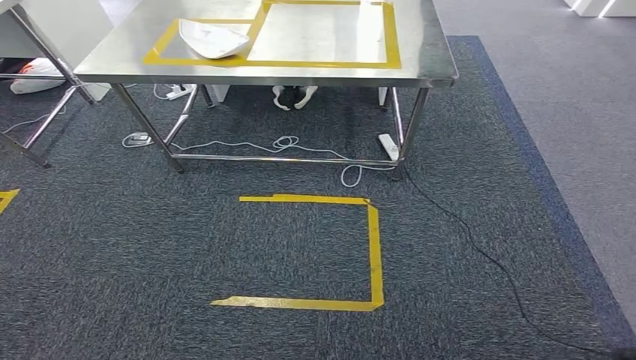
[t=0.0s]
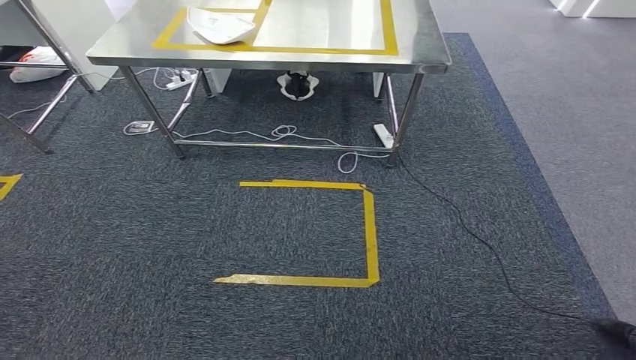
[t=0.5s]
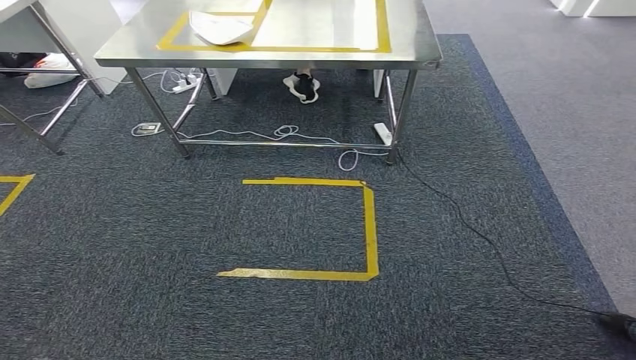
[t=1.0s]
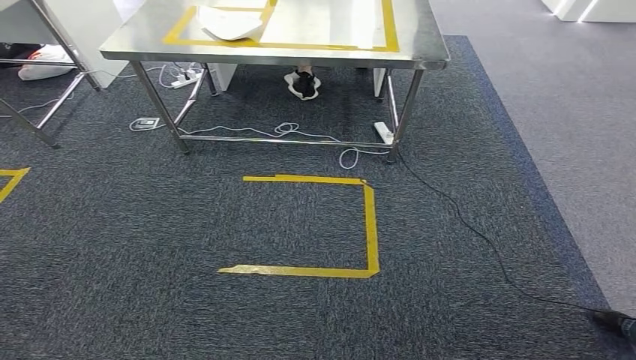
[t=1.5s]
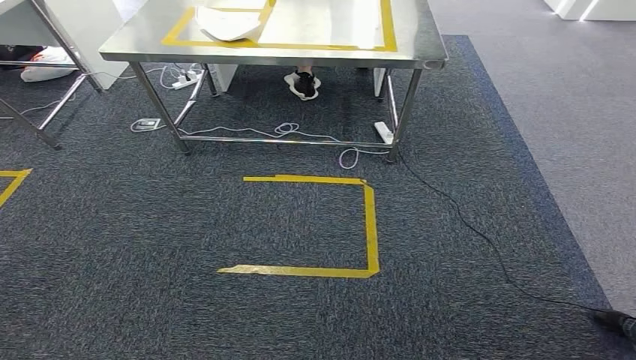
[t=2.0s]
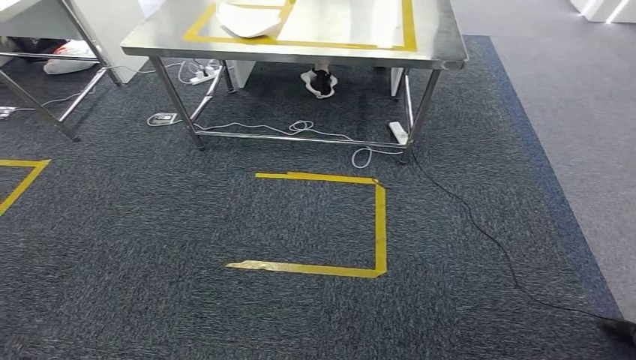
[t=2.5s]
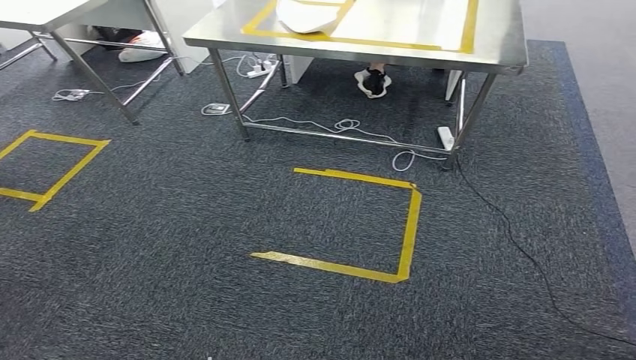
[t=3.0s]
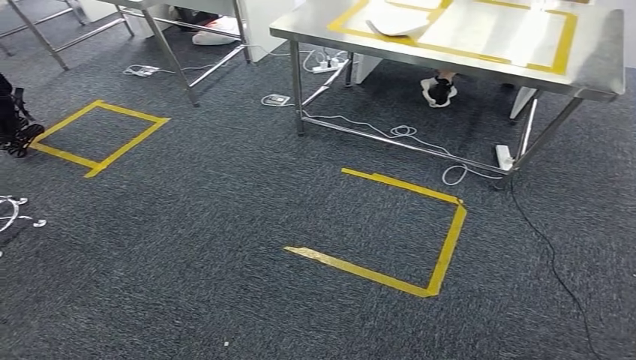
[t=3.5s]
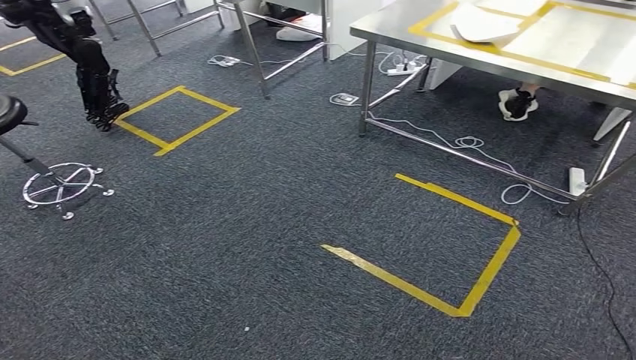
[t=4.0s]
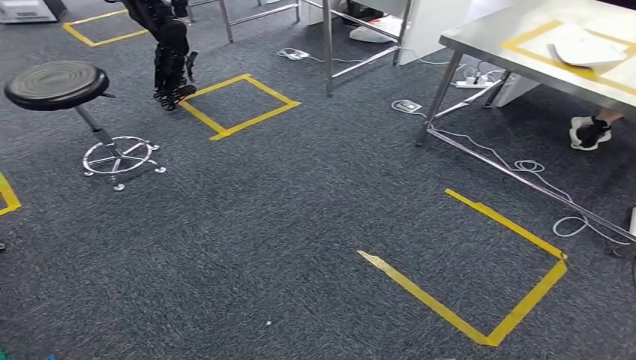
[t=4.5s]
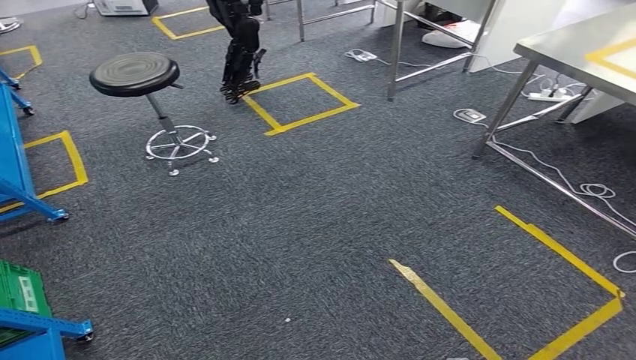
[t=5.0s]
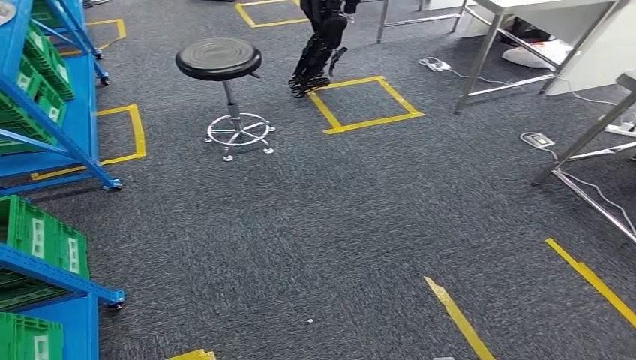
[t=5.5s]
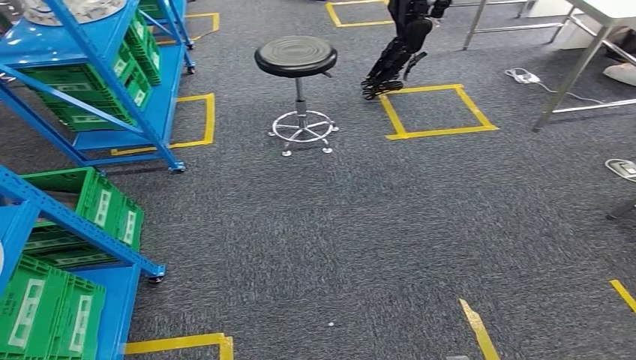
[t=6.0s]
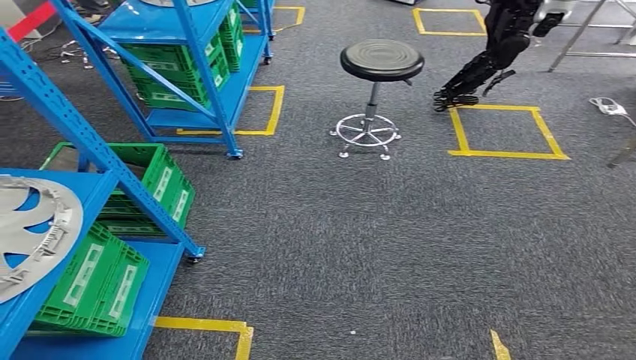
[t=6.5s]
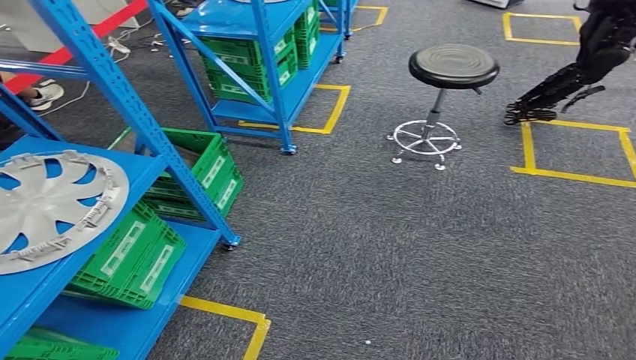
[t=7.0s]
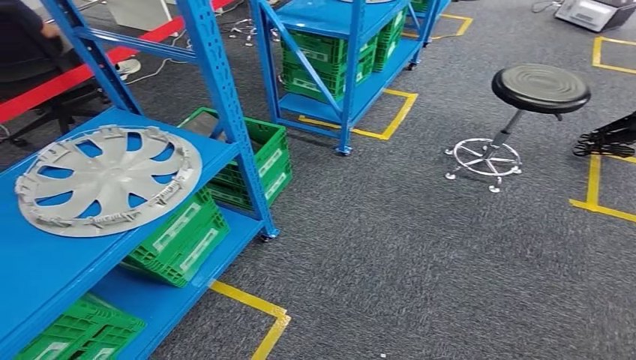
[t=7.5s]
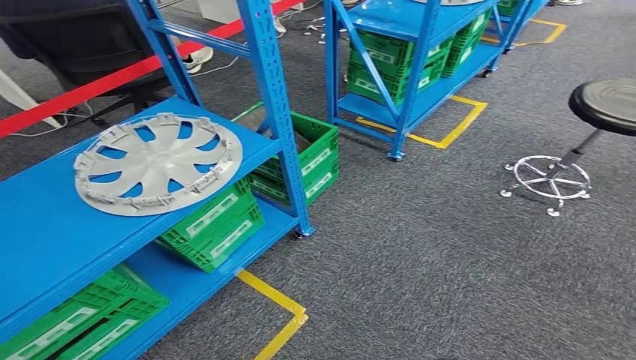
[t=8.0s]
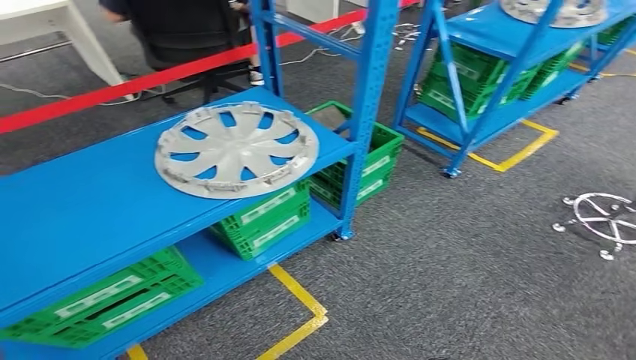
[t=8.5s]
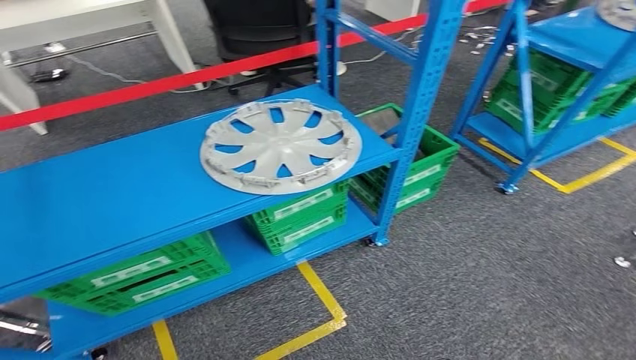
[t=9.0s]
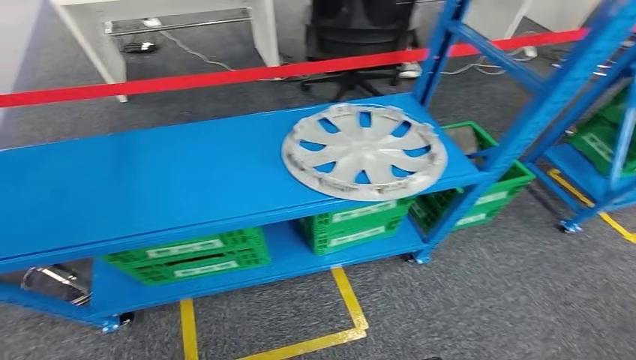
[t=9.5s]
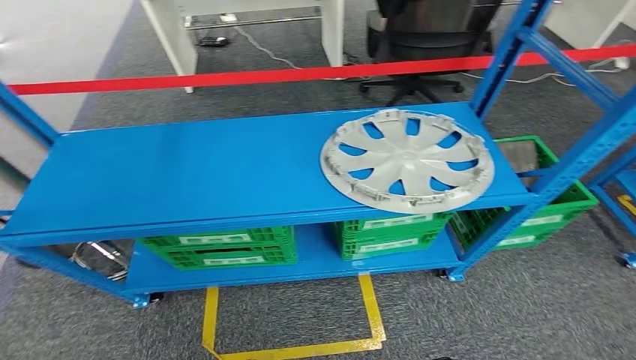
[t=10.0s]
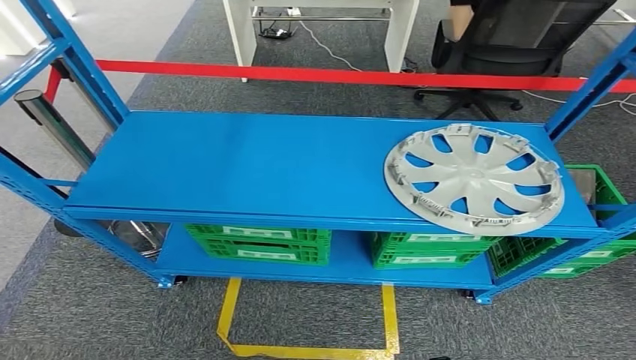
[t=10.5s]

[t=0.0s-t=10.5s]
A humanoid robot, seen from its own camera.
Step, t=0.0s to t=10.5s: Return to the initial position at the workbench.
t=0.0s to t=2.0s: The hands make only small movements.
